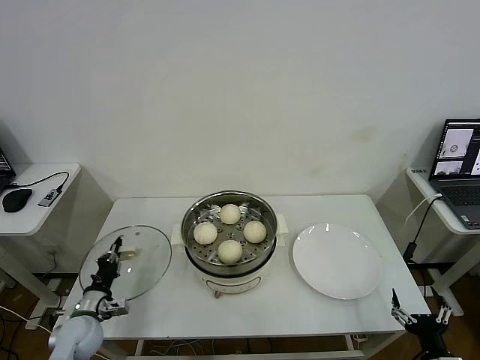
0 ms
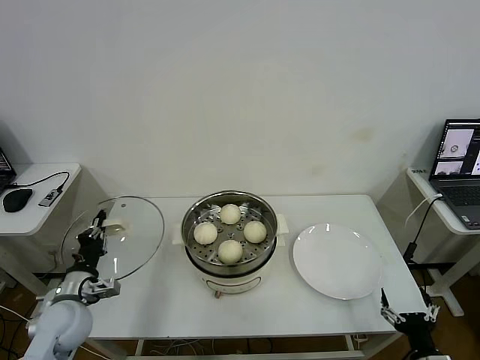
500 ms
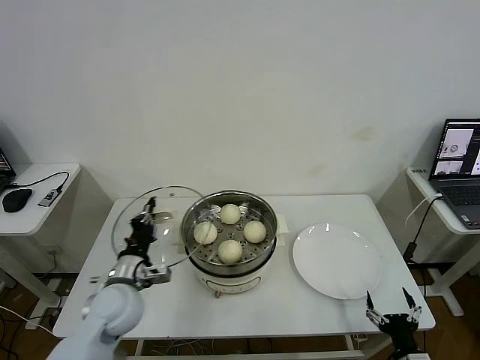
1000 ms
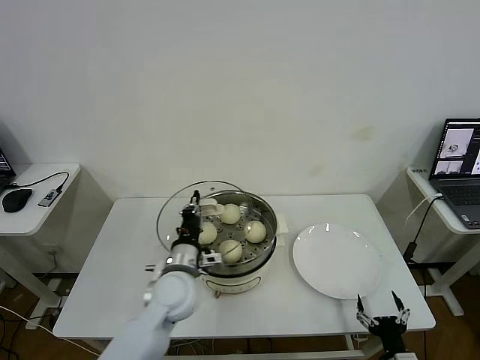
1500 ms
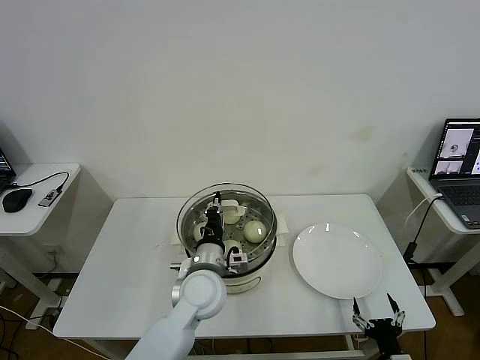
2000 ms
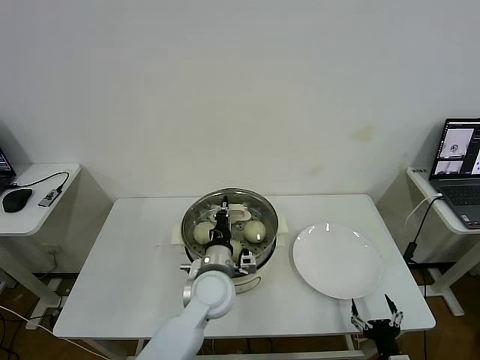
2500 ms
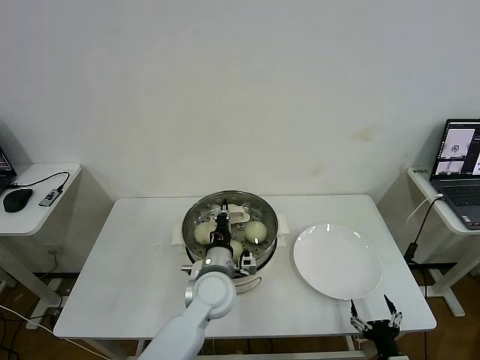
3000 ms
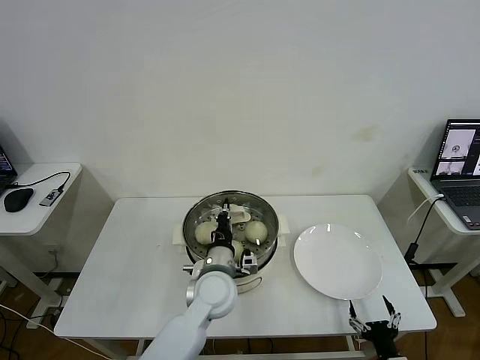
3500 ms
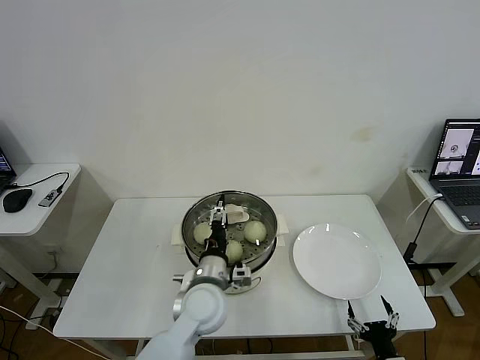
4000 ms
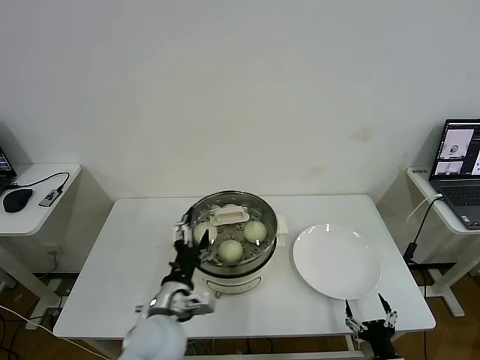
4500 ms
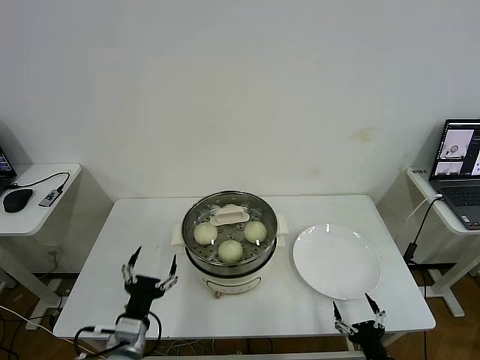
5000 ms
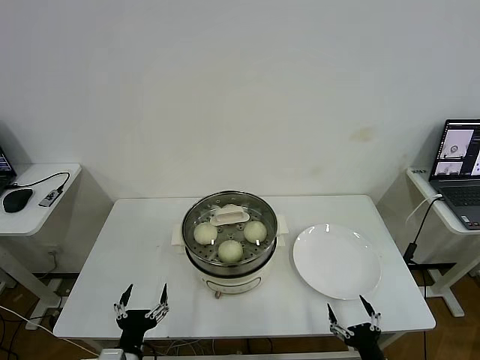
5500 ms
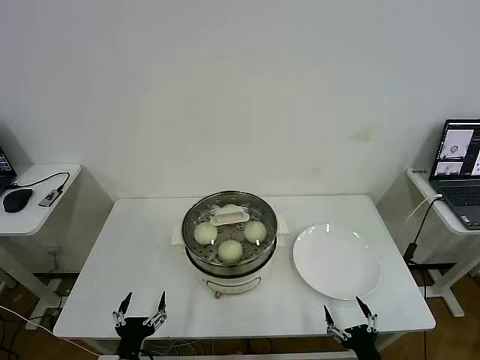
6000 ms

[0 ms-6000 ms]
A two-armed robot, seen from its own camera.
Task of the whole recording: take steamed baozi put them in steamer then cover it.
Step, 0 ms to 4000 ms: Place the pot lid on the steamer with left gripper.
0 ms to 2000 ms: The left gripper goes about 35 cm to the right and upward, while the right gripper shifts approximately 5 cm to the left.
2000 ms to 4000 ms: The left gripper opens its fingers.
4000 ms to 6000 ms: The left gripper shifts about 30 cm to the left, backward and downward, and opens its fingers.
